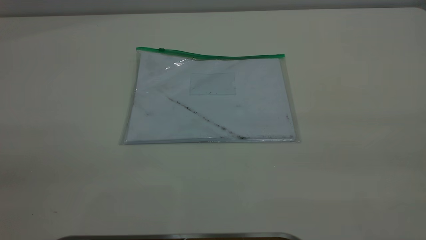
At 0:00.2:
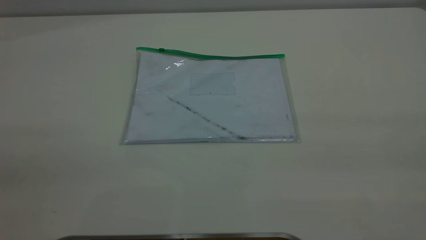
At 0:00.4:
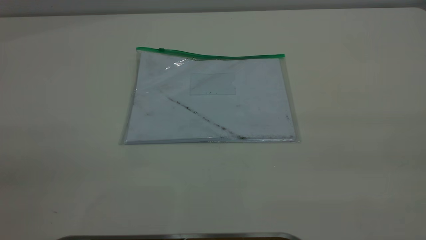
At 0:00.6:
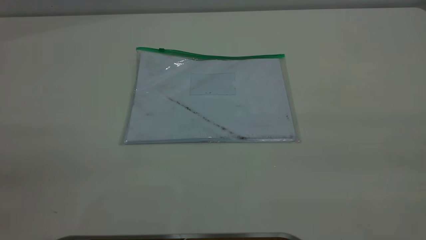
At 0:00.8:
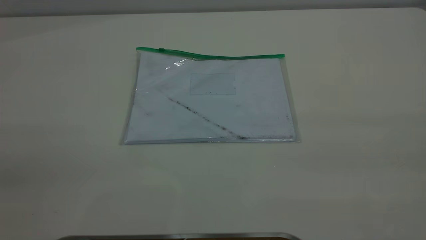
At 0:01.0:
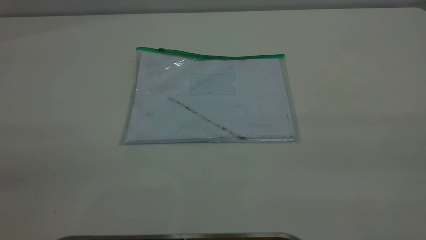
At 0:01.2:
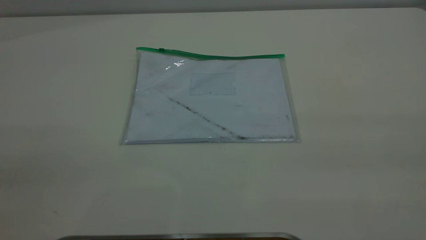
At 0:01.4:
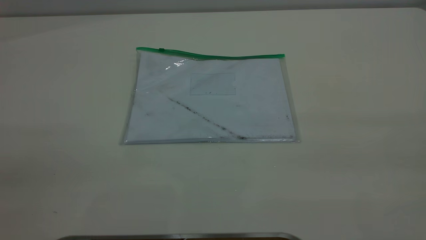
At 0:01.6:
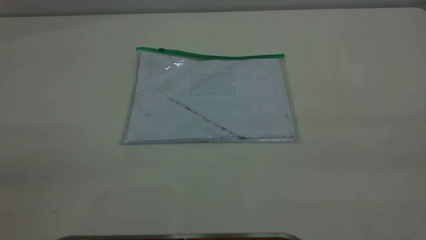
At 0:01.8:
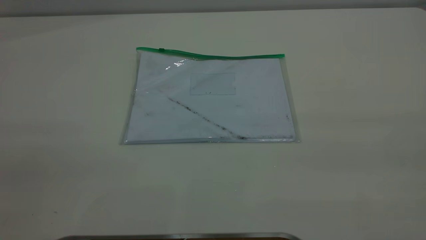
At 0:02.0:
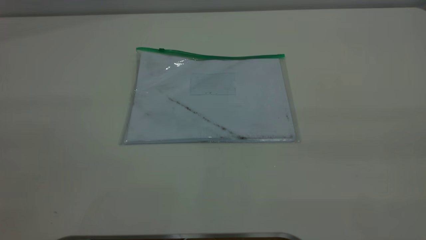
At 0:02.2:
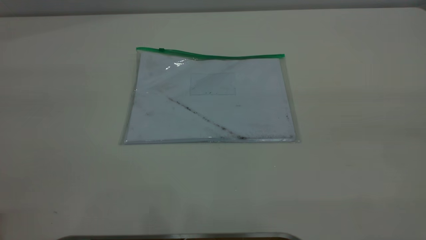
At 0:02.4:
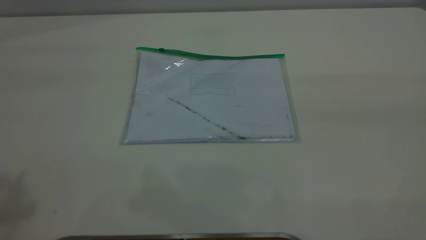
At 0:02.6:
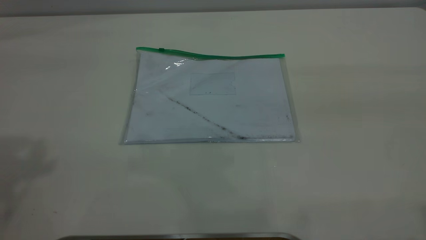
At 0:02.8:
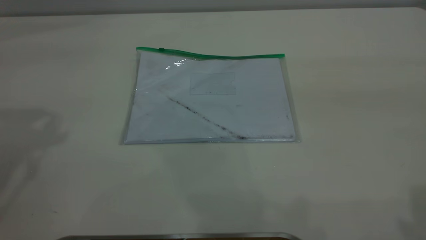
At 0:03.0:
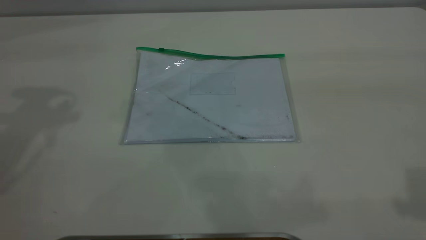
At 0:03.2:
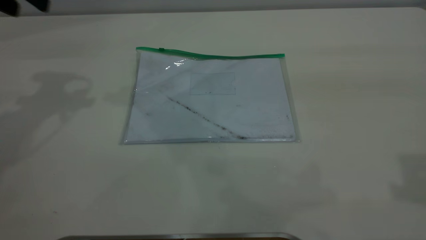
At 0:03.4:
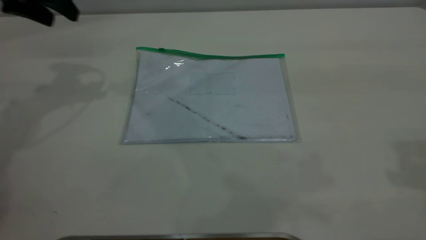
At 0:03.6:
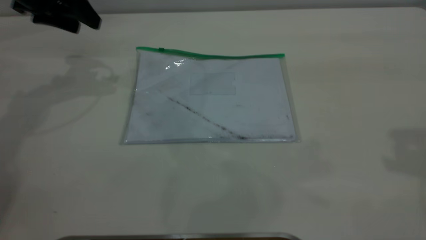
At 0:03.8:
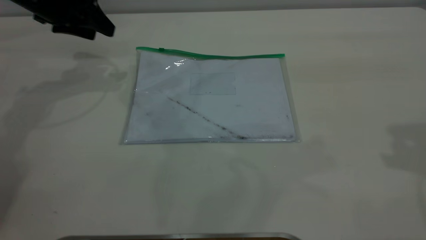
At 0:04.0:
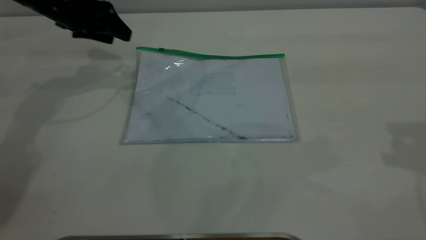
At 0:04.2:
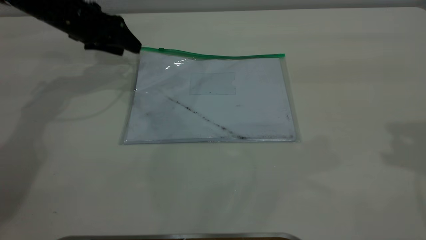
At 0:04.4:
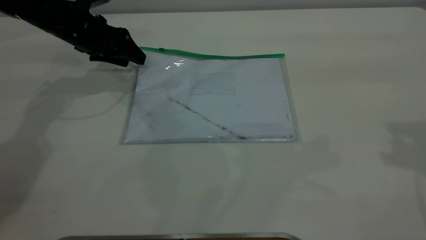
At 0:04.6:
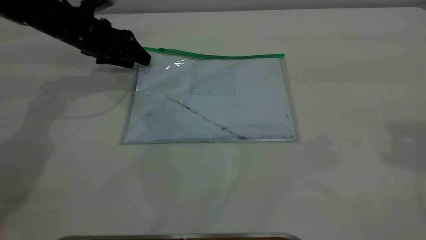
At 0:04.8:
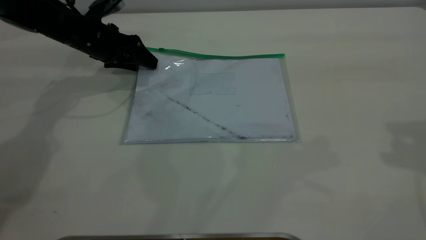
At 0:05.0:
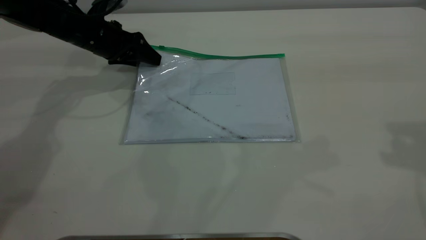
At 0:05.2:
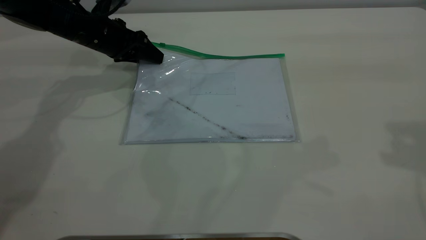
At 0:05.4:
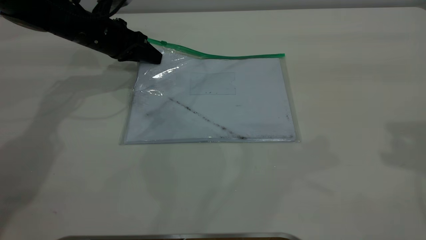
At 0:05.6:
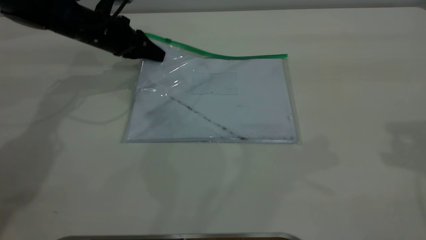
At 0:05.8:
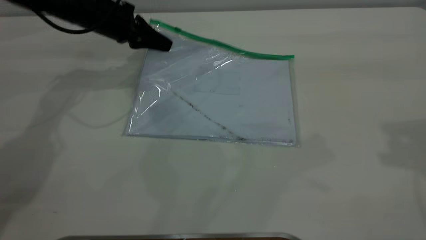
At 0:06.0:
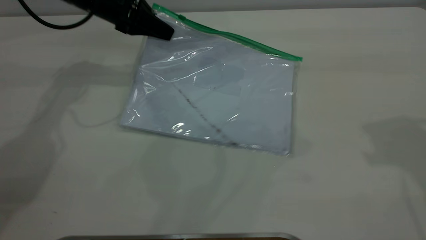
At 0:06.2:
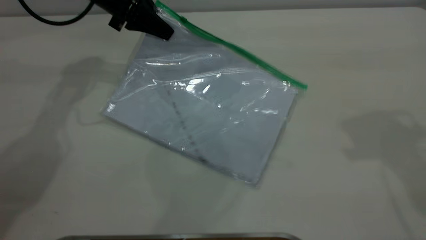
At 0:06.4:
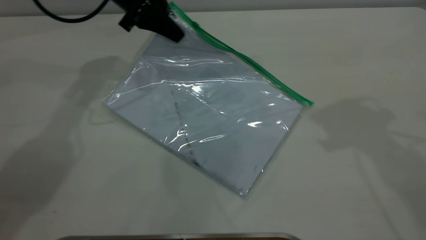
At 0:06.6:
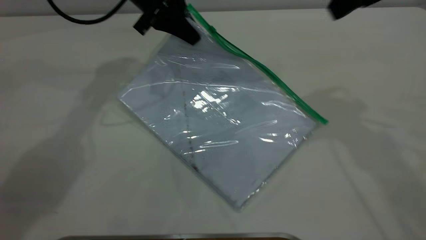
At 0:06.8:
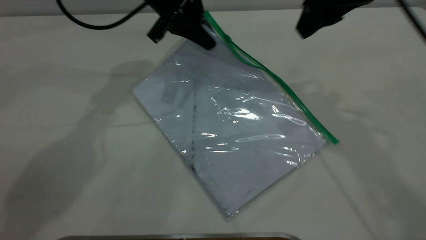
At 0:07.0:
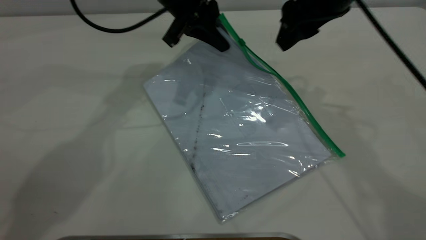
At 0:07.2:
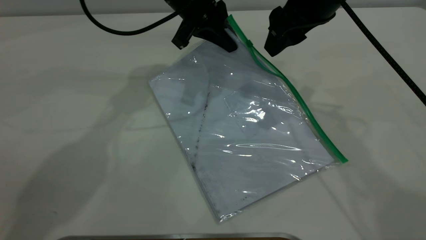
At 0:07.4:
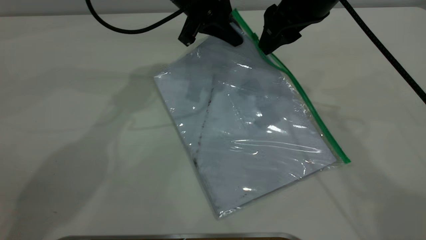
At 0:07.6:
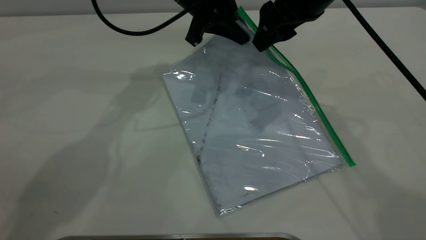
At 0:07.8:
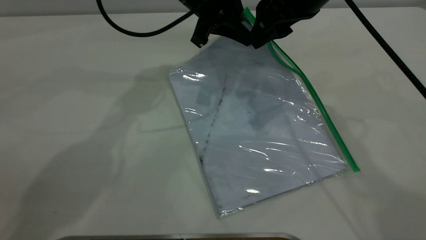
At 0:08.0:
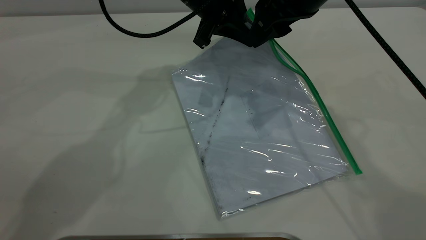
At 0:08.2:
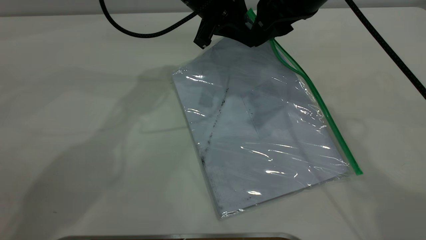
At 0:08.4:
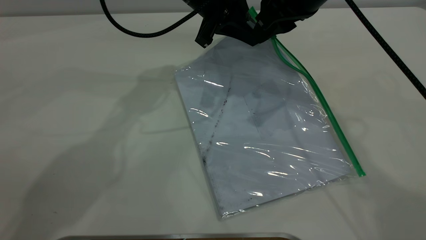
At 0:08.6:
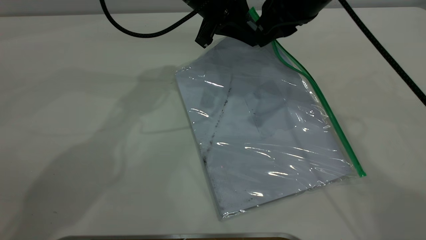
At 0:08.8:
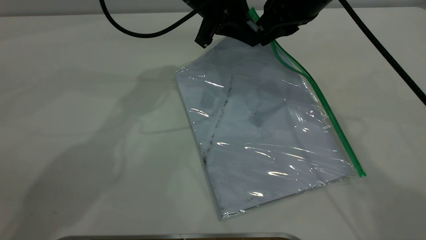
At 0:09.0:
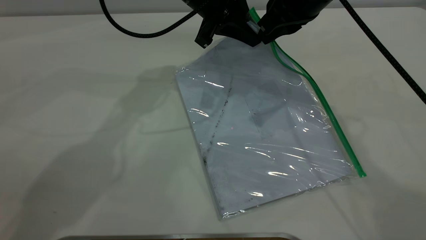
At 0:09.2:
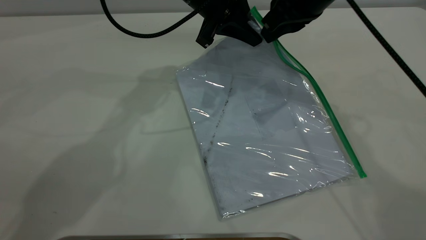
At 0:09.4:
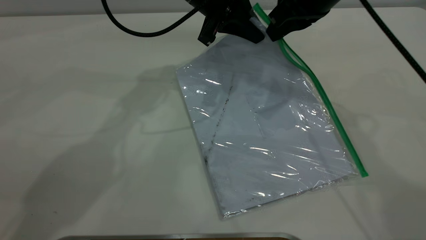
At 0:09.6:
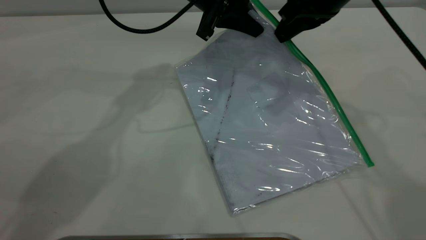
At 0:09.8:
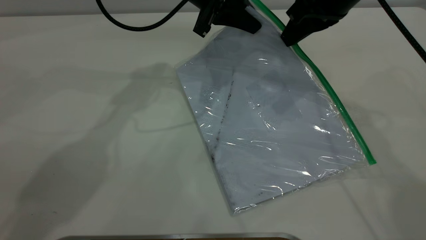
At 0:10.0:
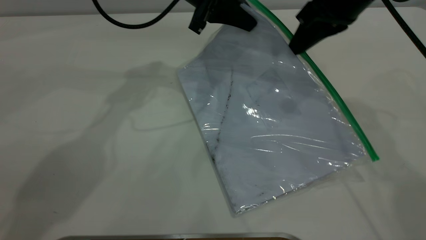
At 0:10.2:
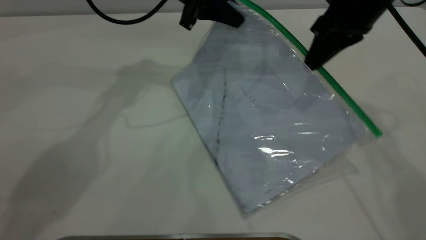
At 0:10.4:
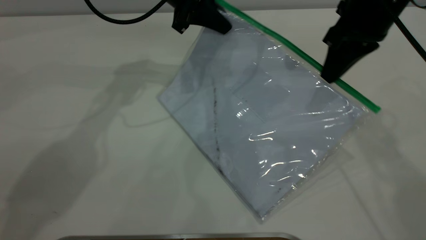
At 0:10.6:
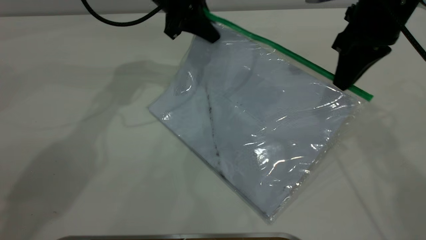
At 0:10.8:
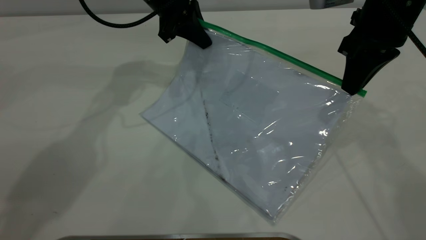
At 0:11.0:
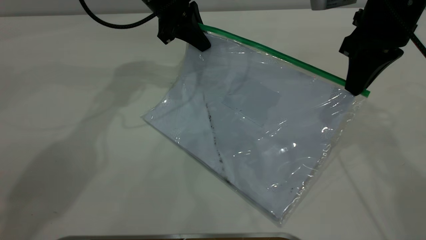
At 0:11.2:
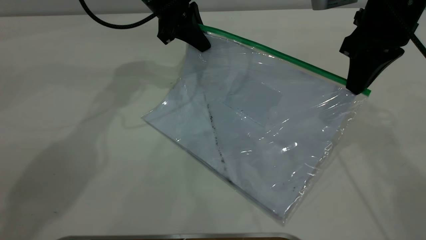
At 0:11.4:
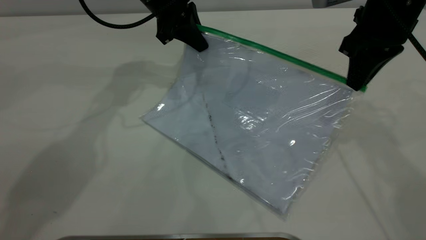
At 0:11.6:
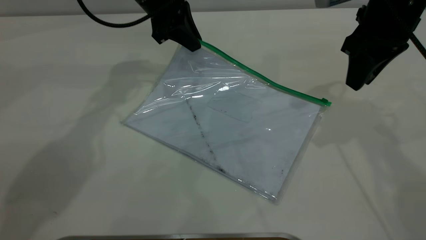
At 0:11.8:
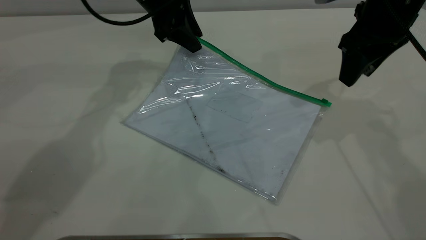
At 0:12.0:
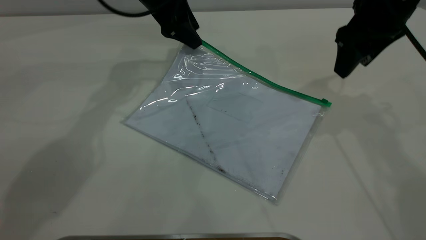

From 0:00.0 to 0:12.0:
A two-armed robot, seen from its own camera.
Step, from 0:00.0 to 0:05.8: Pick up the transparent plastic bag with the left gripper.
Step, from 0:06.0 to 0:11.4: Pulling up the zipper on the transparent plastic bag with the right gripper to close it.
From 0:00.0 to 0:01.6: Neither gripper changes place.
From 0:03.0 to 0:04.4: The left gripper shifts roughly 25 cm downward and forward.
From 0:04.4 to 0:06.0: The left gripper travels to the right by roughly 5 cm, and closes up.
From 0:06.0 to 0:07.6: The right gripper shifts about 20 cm to the left, forward and downward, while the left gripper heads to the right, covering roughly 15 cm.
From 0:07.6 to 0:09.0: The right gripper closes its fingers.
From 0:09.0 to 0:10.4: The left gripper moves to the left, roughly 5 cm. Meanwhile the right gripper heads to the right, covering approximately 5 cm.
From 0:10.4 to 0:12.0: The right gripper opens. Meanwhile the left gripper opens its fingers.

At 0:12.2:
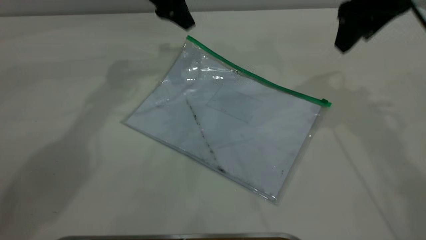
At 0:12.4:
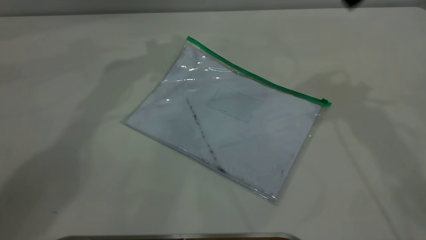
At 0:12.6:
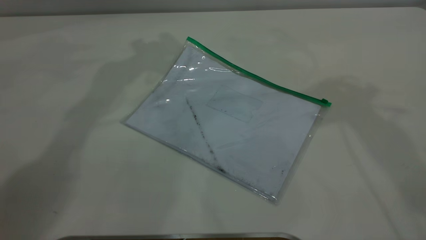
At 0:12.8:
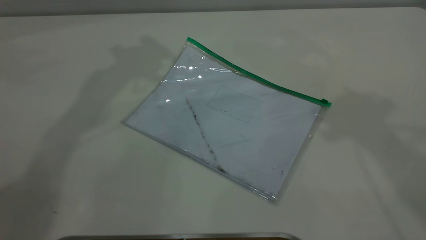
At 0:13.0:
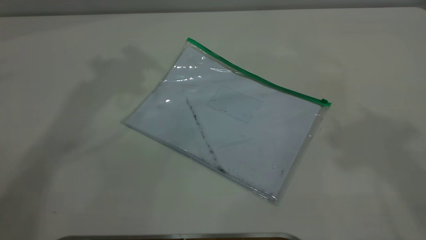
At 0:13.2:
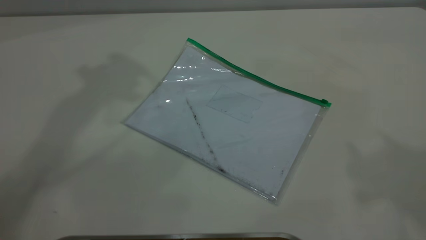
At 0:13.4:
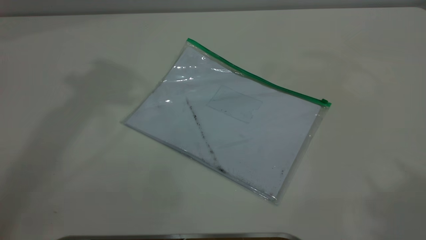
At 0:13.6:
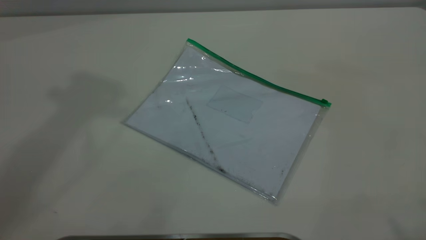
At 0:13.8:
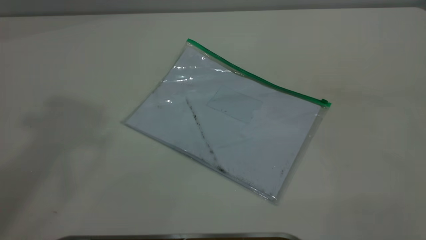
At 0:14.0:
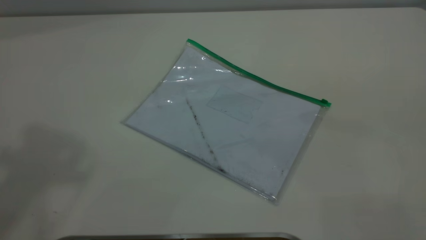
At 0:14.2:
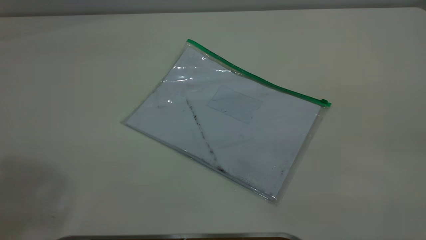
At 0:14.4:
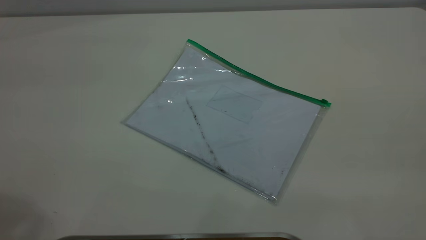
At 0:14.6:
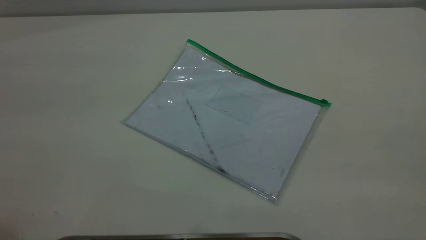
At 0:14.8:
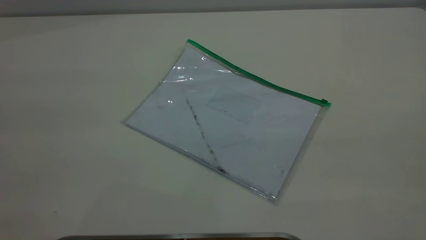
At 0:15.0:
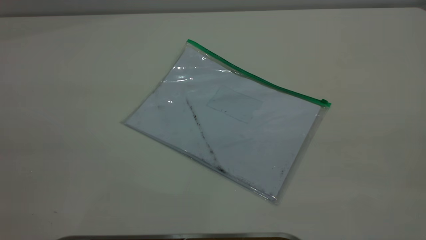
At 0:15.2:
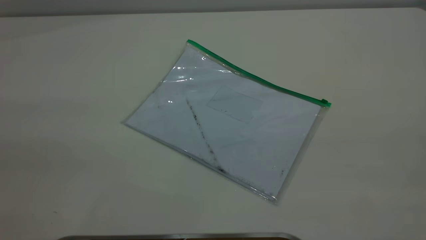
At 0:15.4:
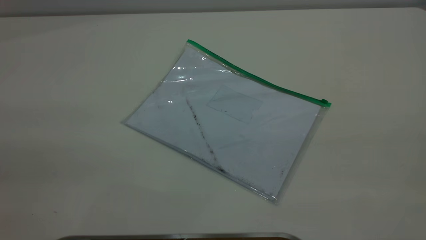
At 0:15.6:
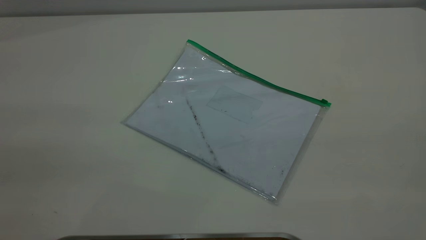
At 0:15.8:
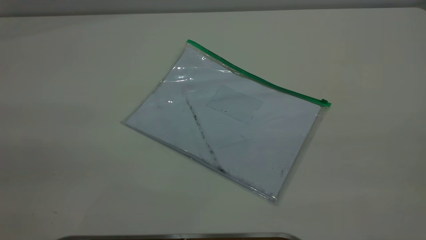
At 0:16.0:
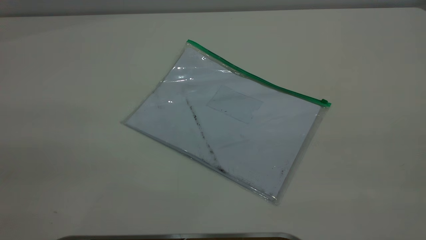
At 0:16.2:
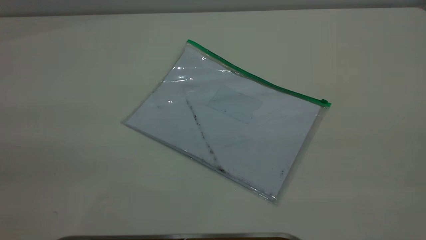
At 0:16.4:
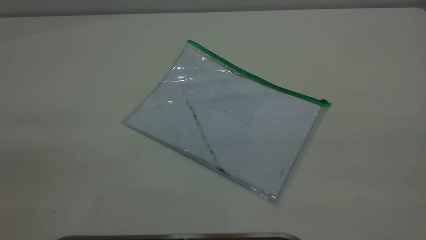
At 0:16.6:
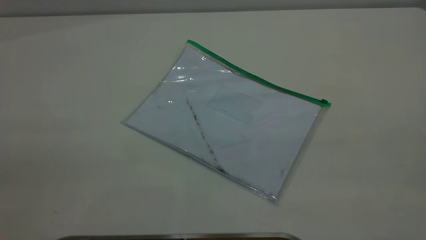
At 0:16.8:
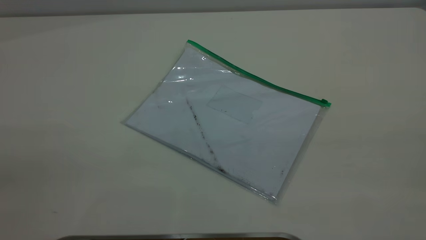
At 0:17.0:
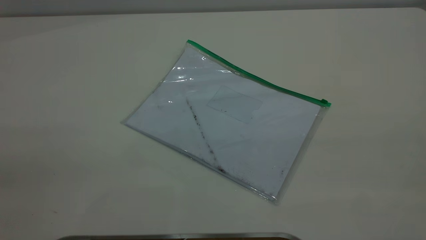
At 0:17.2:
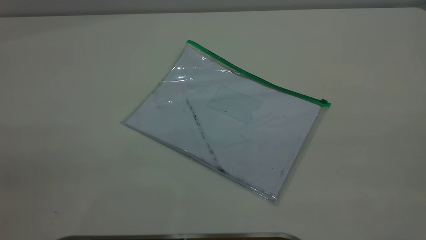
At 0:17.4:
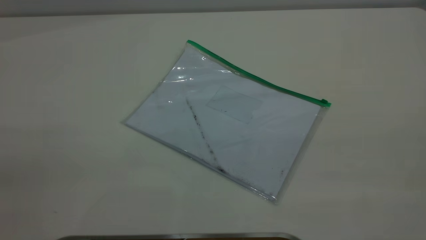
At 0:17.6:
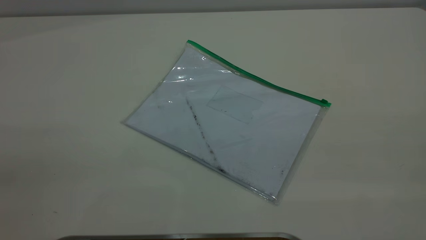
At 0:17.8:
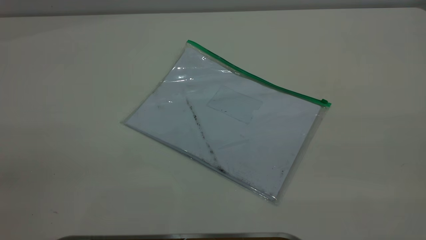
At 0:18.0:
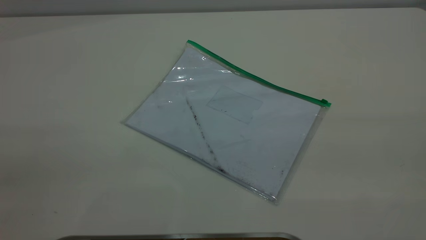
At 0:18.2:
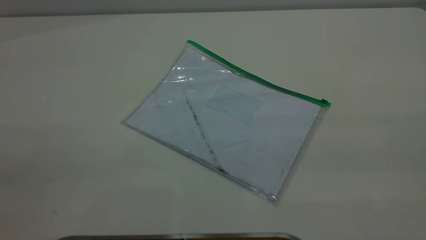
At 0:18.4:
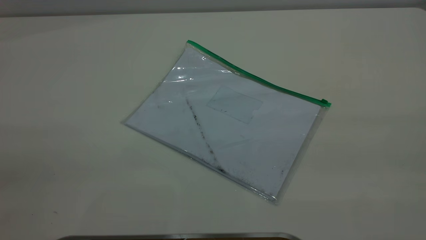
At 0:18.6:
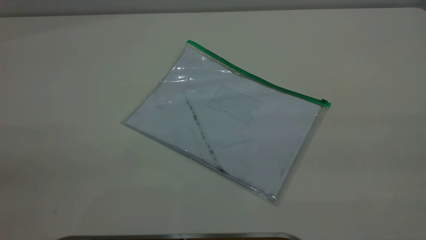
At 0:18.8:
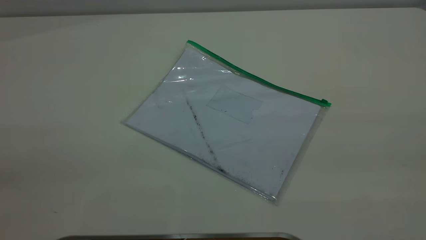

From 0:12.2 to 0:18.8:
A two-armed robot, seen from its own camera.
From 0:12.2 to 0:13.8: The right gripper goes about 40 cm backward and upward, while the left gripper moves upward and backward, approximately 40 cm.
